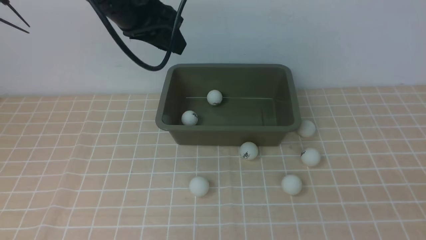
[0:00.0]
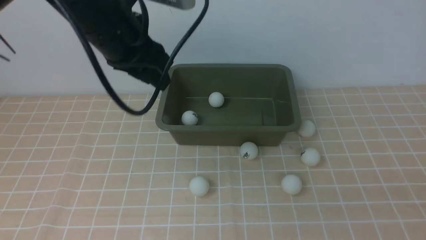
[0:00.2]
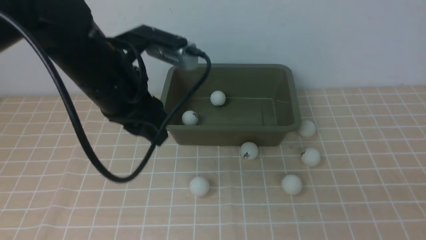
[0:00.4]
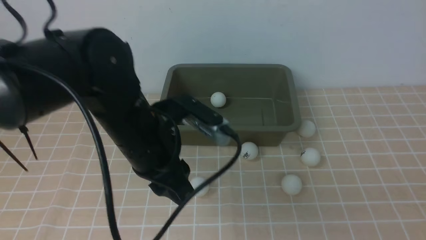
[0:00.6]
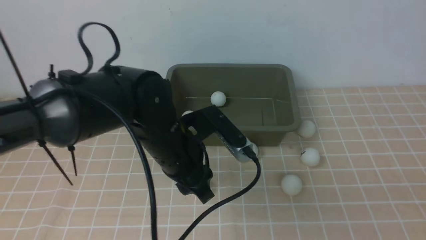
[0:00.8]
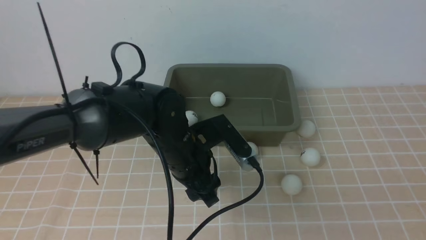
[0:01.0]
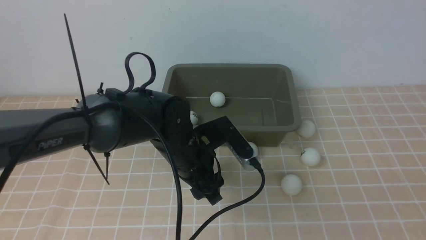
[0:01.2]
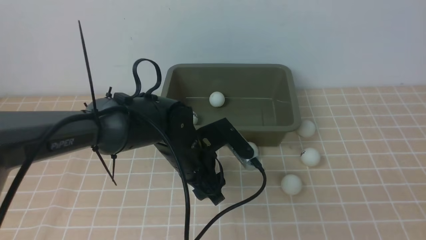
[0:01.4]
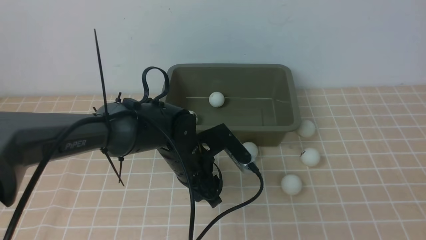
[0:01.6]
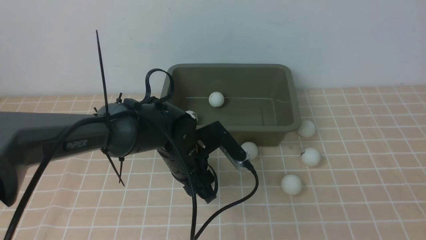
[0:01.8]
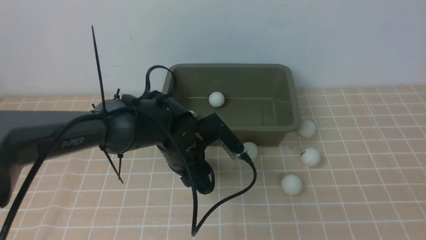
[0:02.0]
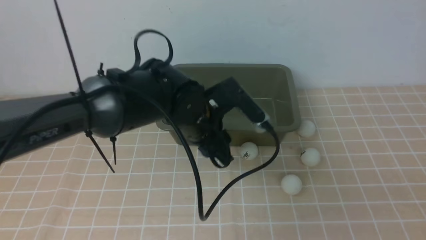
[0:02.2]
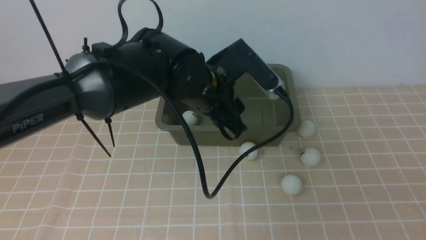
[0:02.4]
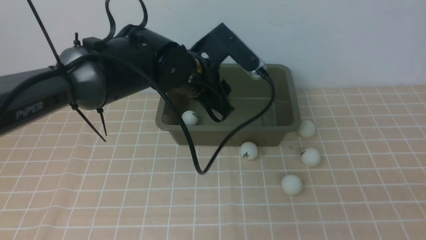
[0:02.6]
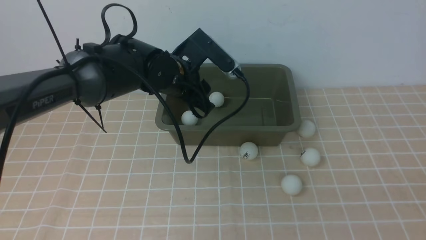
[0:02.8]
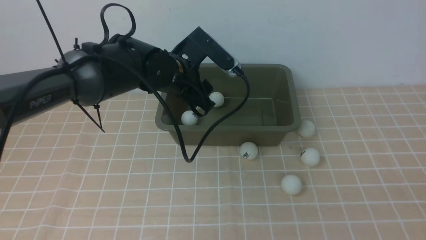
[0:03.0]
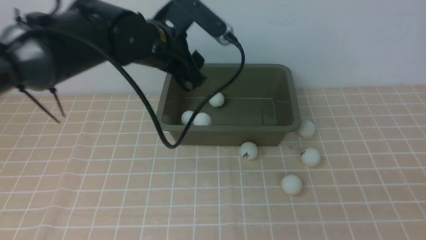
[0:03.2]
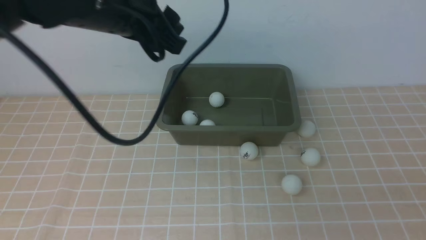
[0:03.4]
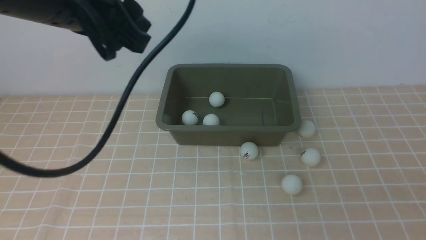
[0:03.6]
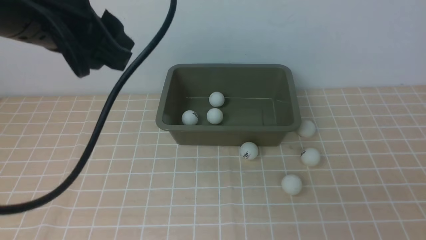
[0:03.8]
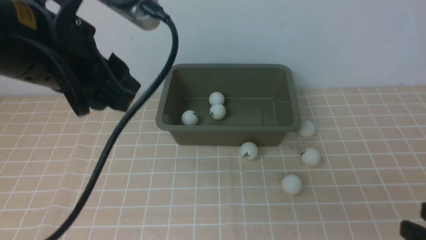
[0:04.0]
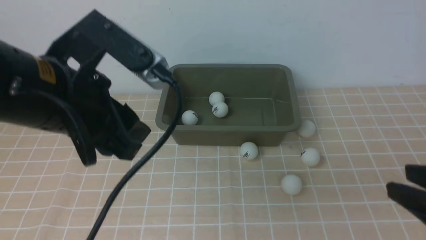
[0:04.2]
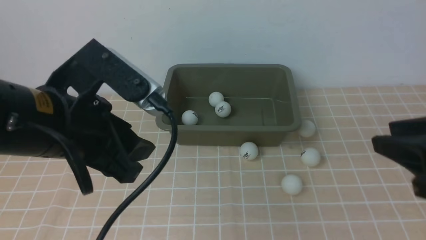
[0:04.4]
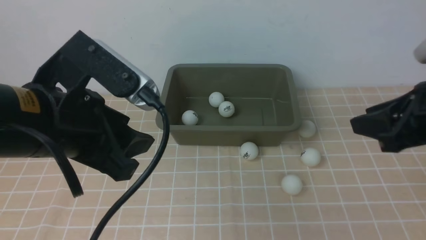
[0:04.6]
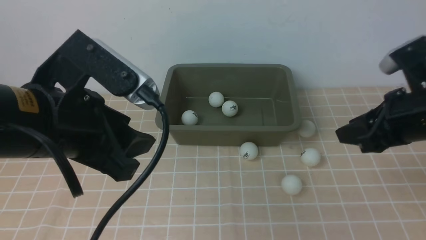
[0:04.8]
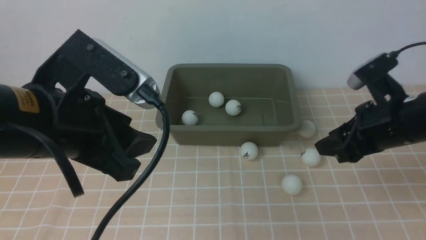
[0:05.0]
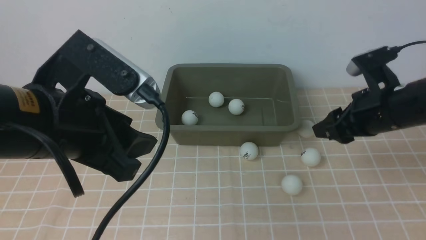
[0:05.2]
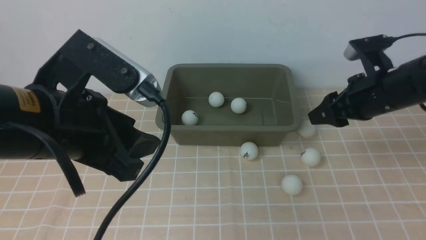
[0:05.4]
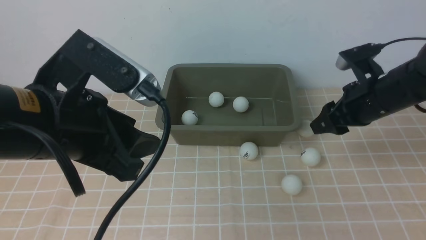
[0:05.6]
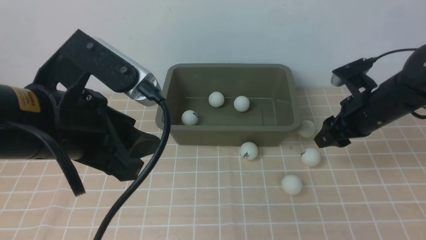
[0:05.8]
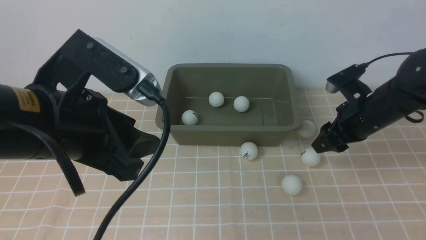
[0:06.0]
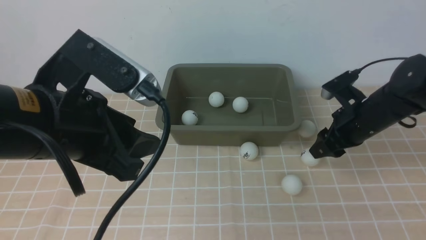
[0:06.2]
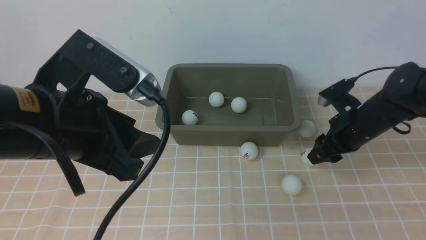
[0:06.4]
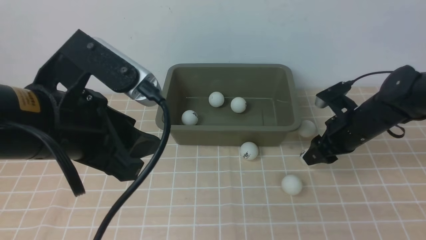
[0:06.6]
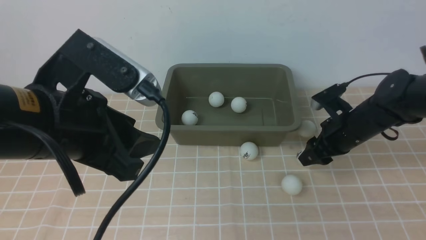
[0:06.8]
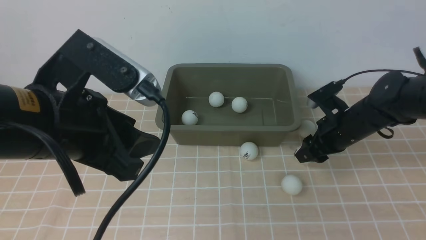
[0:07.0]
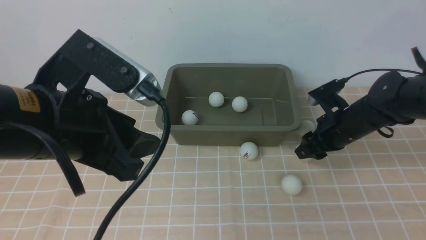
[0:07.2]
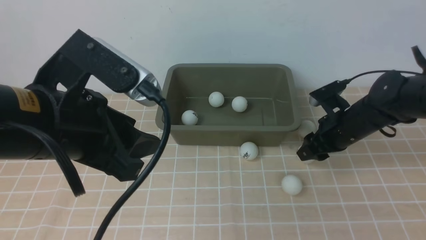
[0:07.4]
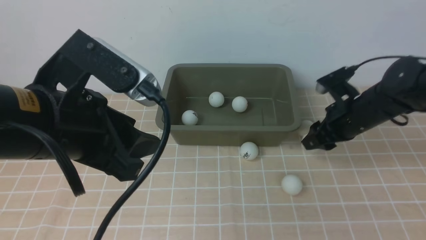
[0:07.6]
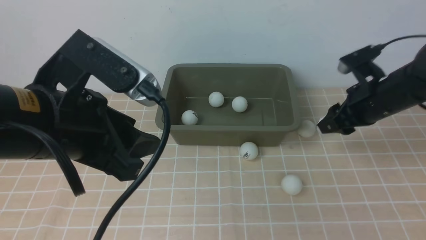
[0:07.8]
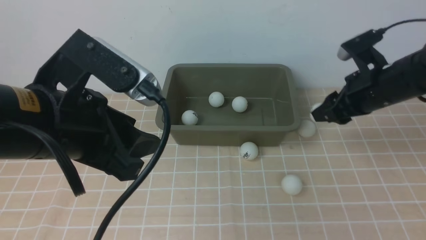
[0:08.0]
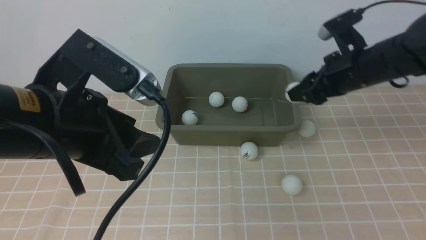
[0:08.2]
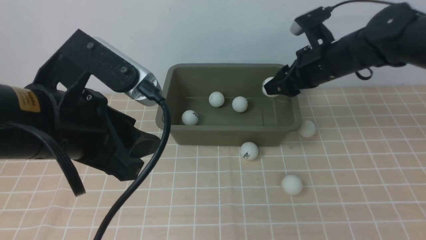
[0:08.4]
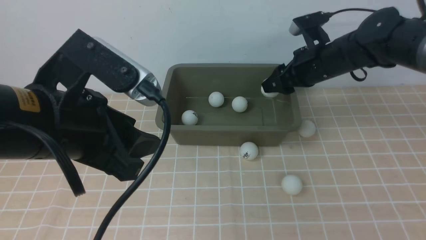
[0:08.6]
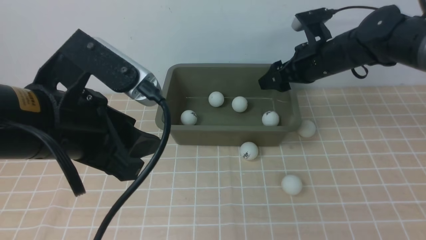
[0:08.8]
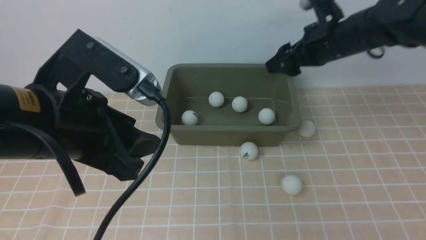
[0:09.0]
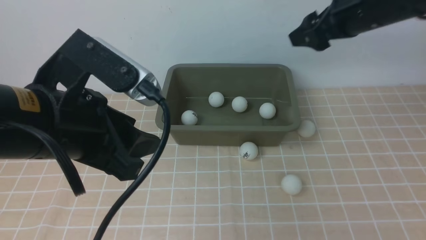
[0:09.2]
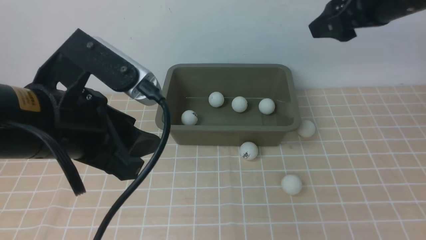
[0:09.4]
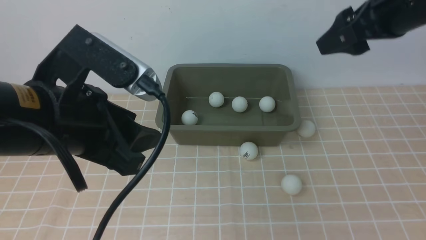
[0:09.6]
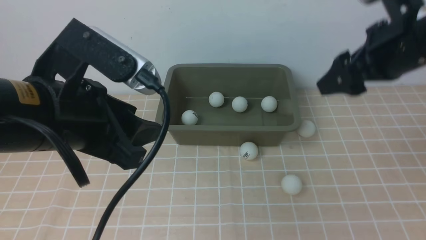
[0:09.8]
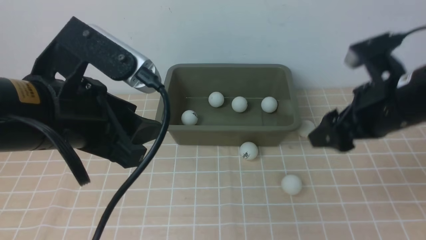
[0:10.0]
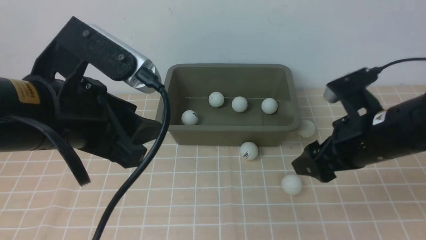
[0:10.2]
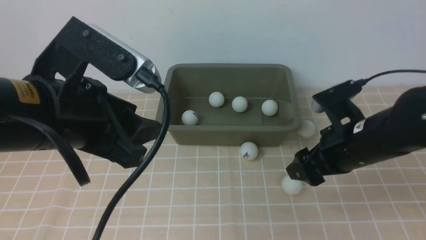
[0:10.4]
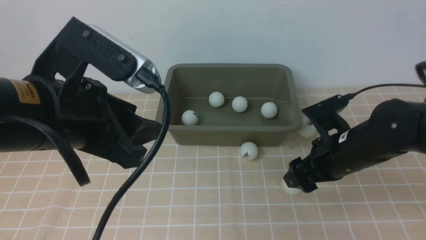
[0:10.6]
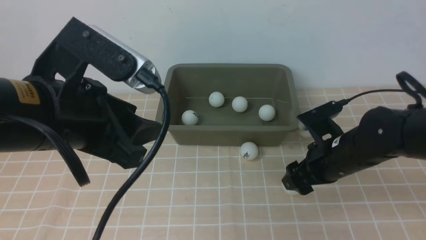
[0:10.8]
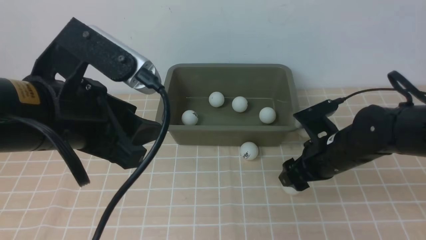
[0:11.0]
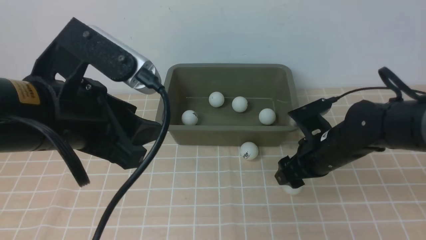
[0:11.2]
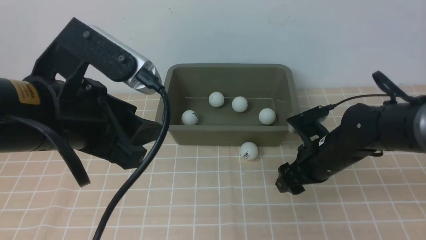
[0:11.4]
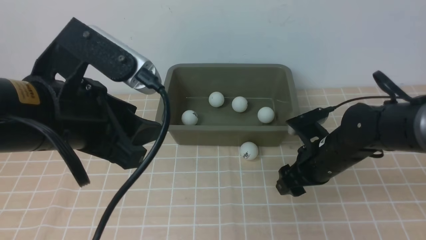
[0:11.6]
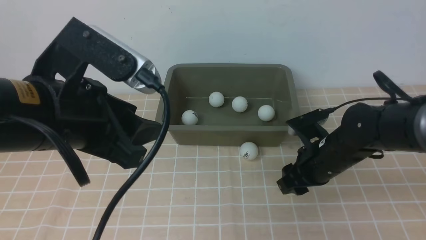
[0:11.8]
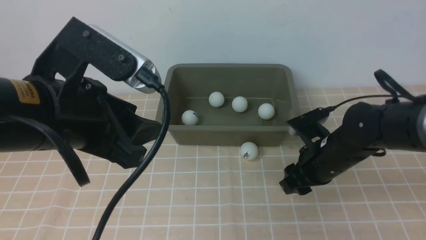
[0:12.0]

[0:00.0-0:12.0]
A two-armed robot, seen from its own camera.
Step, 0:00.0 to 0:02.0: use the left arm to clamp the table tennis ball closest to it.
Step, 0:02.2 to 0:03.0: use the left arm to put the table tennis ball into the box.
Step, 0:03.2 to 0:07.6: use the right arm to clamp the table tennis ball closest to it.
Step, 0:07.8 to 0:08.8: use the right arm to put the table tennis ball into the box.
Step, 0:09.0 to 0:11.6: use the right arm to clamp the table tennis ball closest to it.
0:00.0 to 0:01.6: The left gripper shifts some 20 cm downward, and opens up.
0:01.6 to 0:03.0: The left gripper heads upward and forward, covering some 15 cm.
0:03.0 to 0:04.4: The left gripper heads backward, covering roughly 20 cm. Meanwhile the right gripper is displaced forward by roughly 15 cm.
0:04.4 to 0:06.0: The right gripper is displaced forward and downward by about 25 cm.
0:06.0 to 0:07.6: There are only small adjustments of the grippers.
0:07.6 to 0:09.0: The right gripper moves upward, some 10 cm, and opens.
0:09.0 to 0:10.4: The right gripper shifts some 15 cm backward and downward.
0:10.4 to 0:12.0: The right gripper travels downward by roughly 5 cm, and closes.

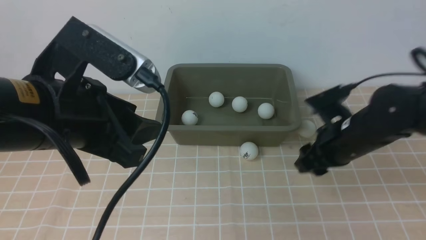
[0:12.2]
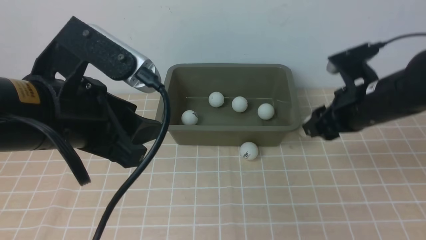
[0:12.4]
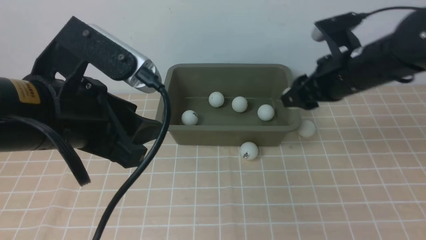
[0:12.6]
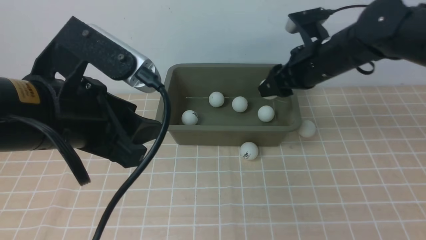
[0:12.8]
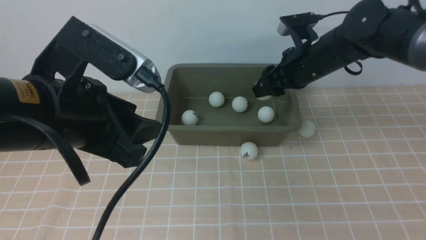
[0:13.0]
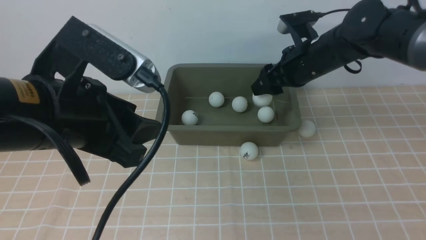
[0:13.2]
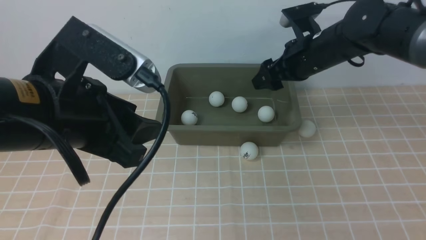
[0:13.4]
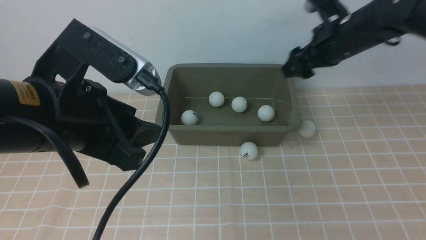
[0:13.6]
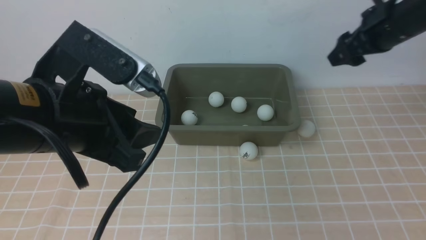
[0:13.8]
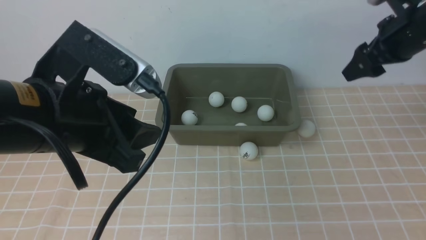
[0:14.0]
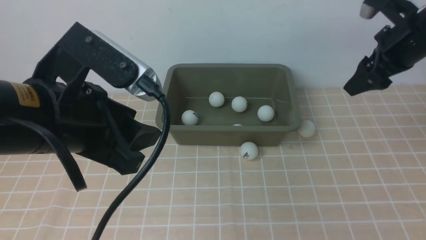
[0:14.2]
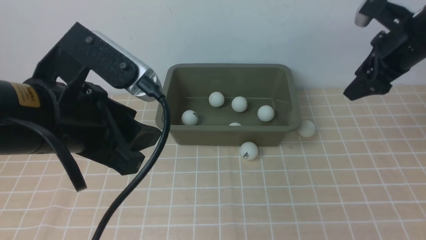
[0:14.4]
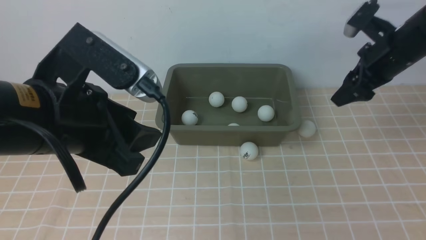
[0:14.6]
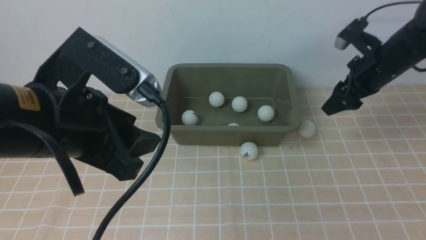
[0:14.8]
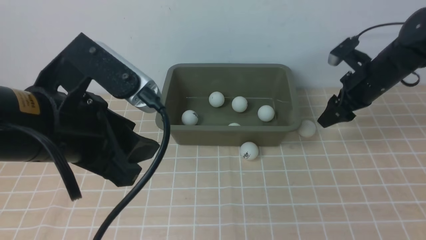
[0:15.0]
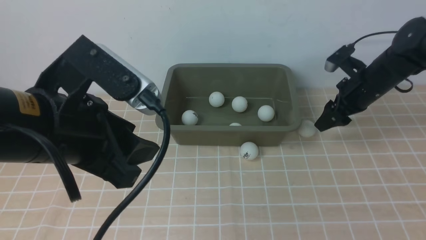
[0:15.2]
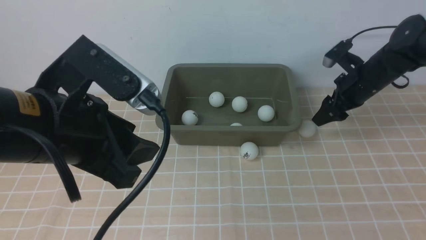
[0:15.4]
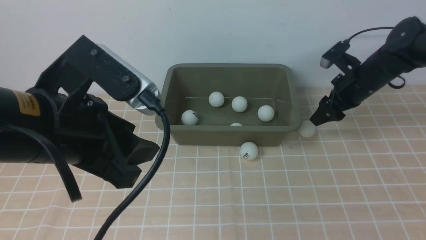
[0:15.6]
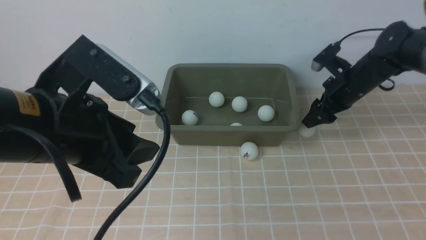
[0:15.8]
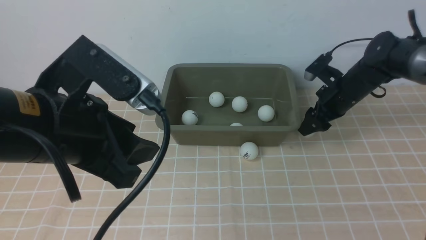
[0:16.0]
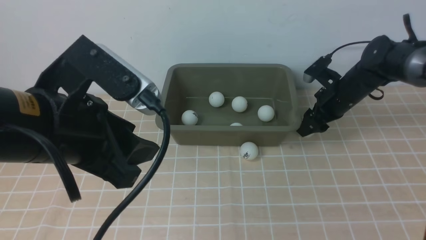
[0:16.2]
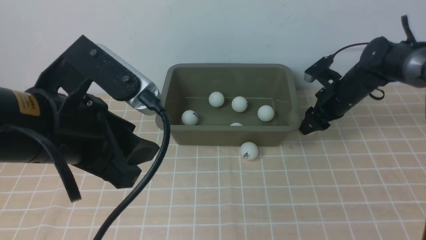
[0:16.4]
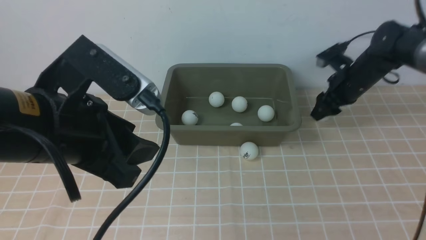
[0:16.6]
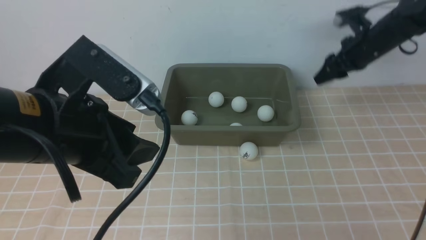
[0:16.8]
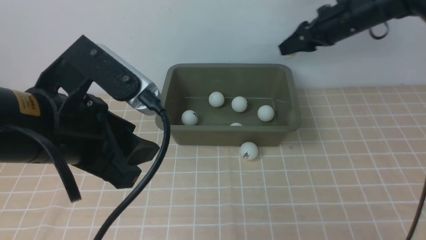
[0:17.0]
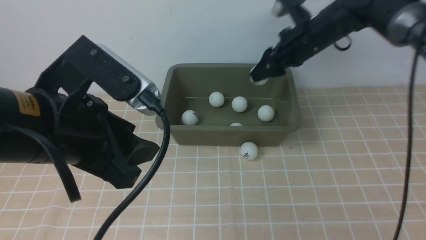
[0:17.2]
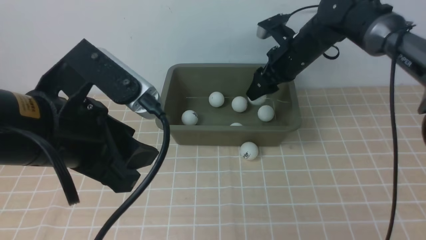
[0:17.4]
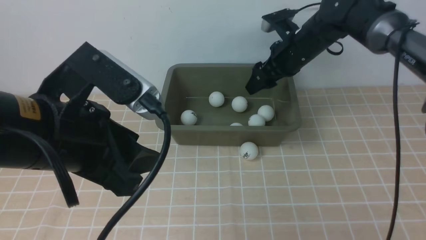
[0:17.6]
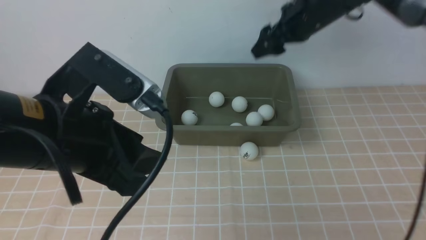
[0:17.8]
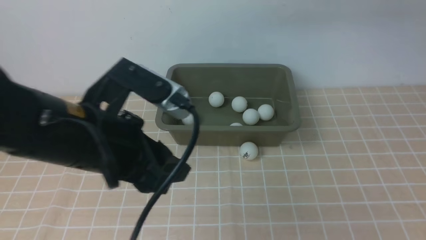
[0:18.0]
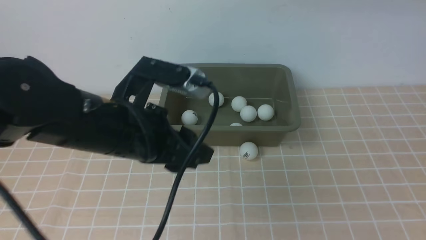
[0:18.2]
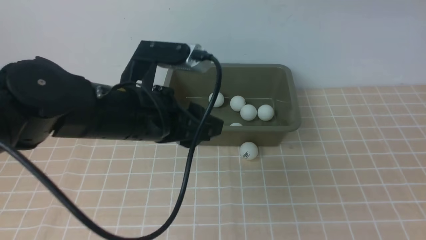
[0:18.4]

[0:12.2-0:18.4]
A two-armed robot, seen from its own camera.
Step, 0:12.2 to 0:13.0: use the right arm to put the table tennis ball into the box.
Step, 0:13.2 to 0:16.4: use the right arm to clamp the table tennis ball closest to it.
Step, 0:16.6 to 0:17.8: use the right arm to put the table tennis ball into the box.
0:12.2 to 0:13.8: The right gripper goes approximately 15 cm upward, forward and to the right, and opens up.
0:13.8 to 0:15.4: The right gripper is displaced downward by about 15 cm.
0:15.4 to 0:16.8: The right gripper goes about 5 cm upward, and closes up.
0:16.8 to 0:18.4: The left gripper heads forward and to the right, covering approximately 10 cm. The right gripper is displaced upward and backward by approximately 35 cm, and opens.
